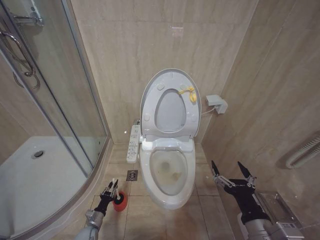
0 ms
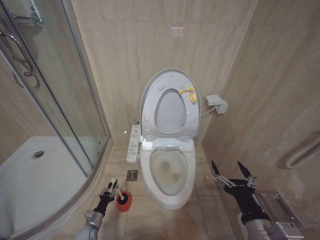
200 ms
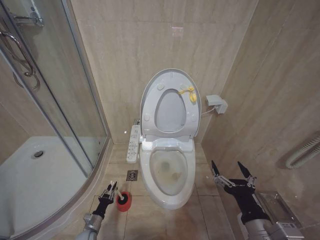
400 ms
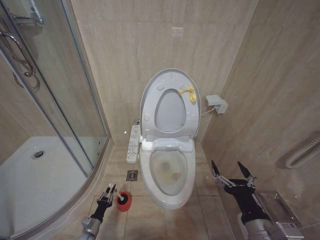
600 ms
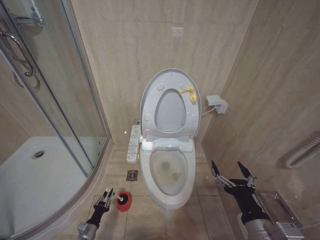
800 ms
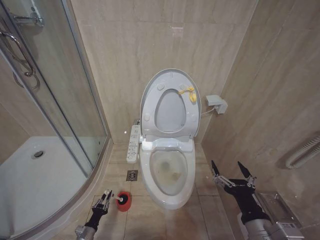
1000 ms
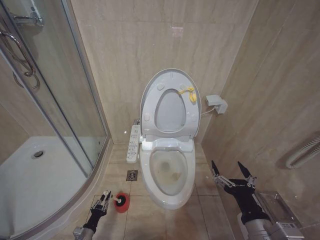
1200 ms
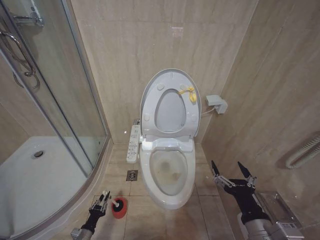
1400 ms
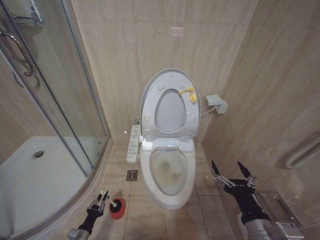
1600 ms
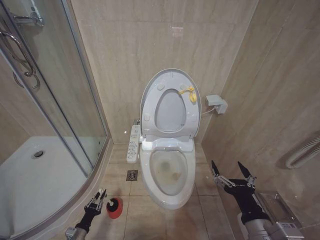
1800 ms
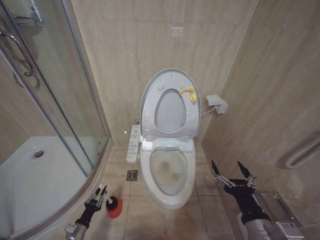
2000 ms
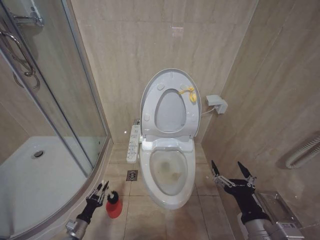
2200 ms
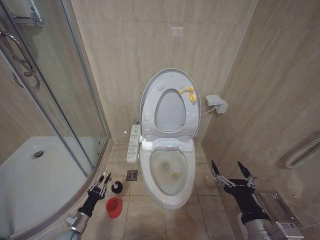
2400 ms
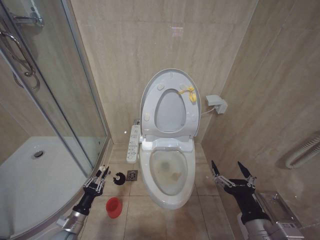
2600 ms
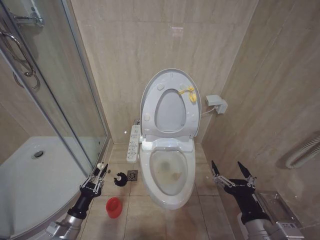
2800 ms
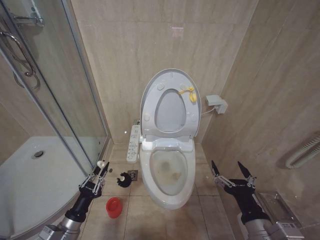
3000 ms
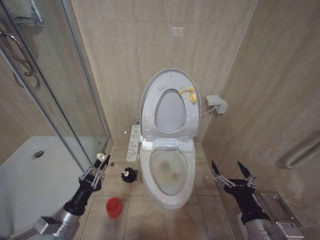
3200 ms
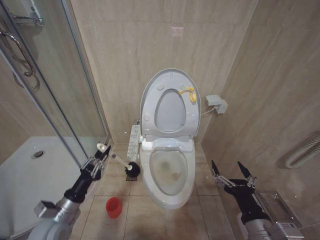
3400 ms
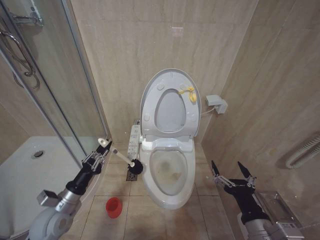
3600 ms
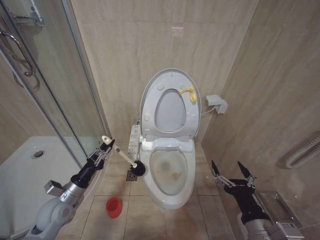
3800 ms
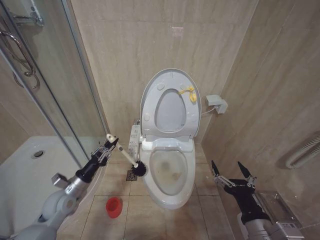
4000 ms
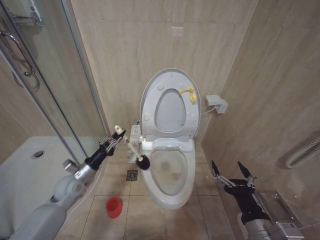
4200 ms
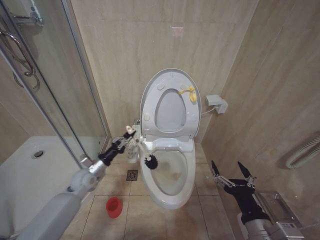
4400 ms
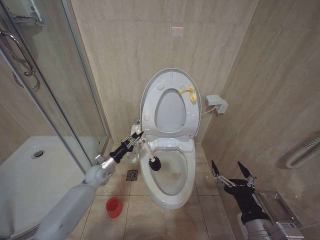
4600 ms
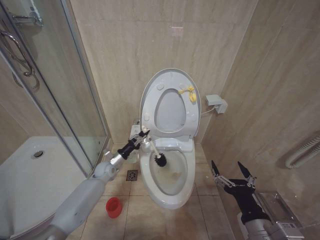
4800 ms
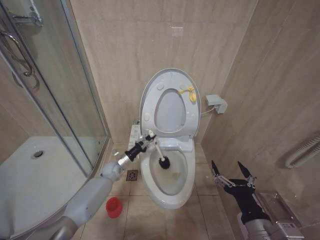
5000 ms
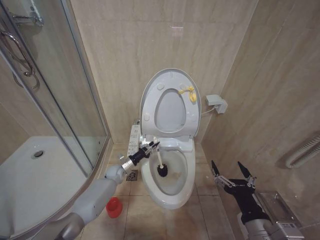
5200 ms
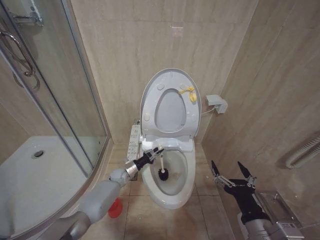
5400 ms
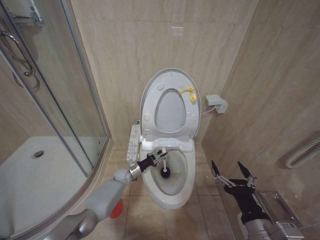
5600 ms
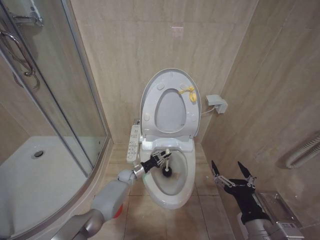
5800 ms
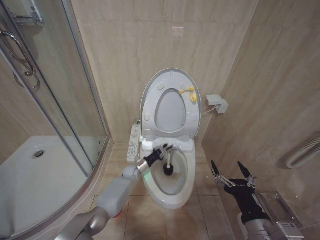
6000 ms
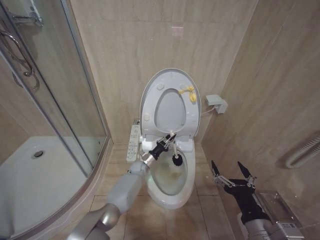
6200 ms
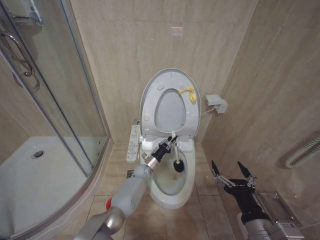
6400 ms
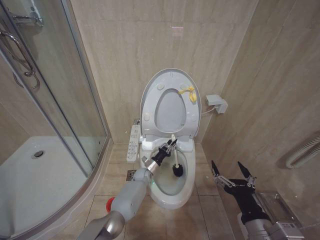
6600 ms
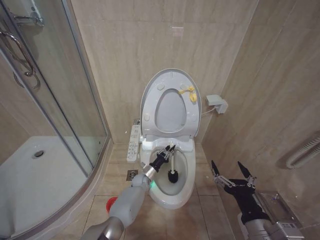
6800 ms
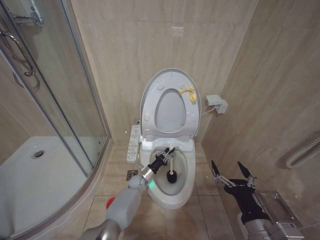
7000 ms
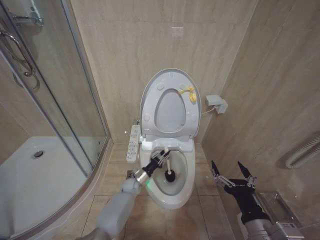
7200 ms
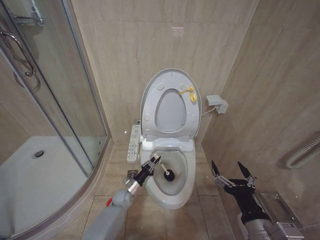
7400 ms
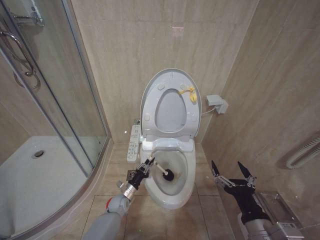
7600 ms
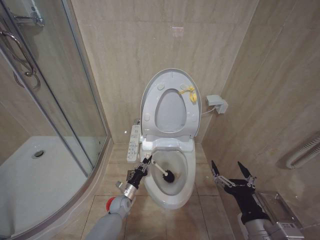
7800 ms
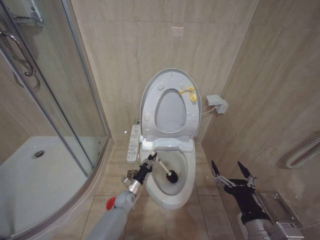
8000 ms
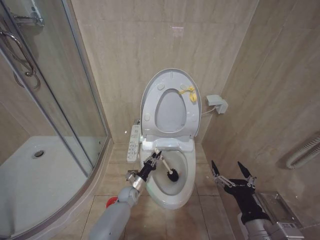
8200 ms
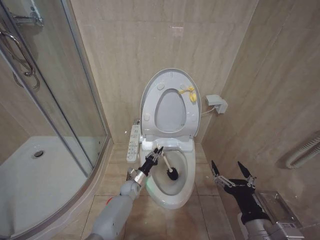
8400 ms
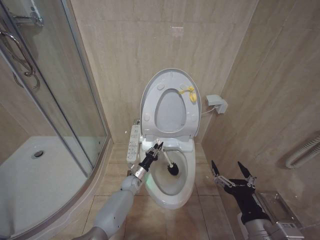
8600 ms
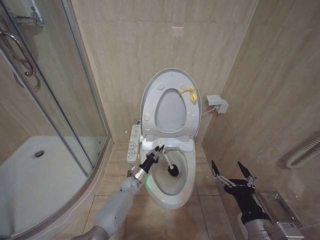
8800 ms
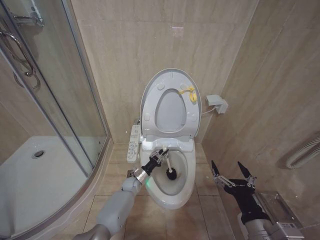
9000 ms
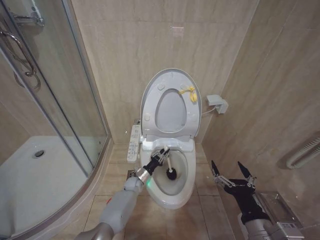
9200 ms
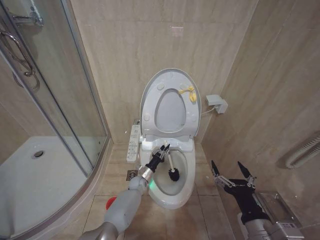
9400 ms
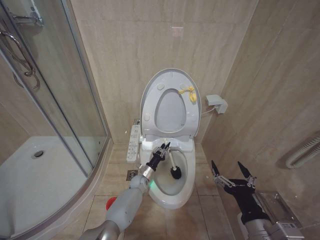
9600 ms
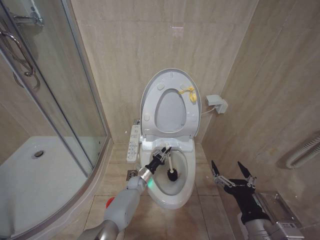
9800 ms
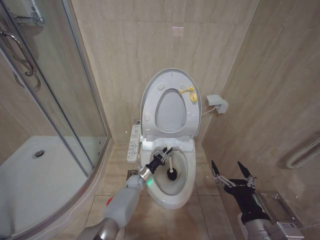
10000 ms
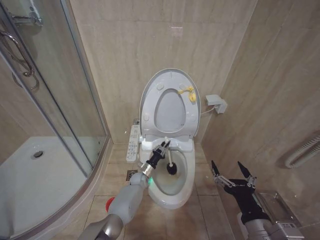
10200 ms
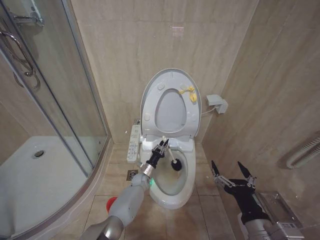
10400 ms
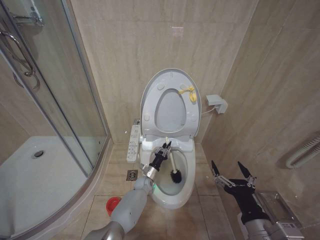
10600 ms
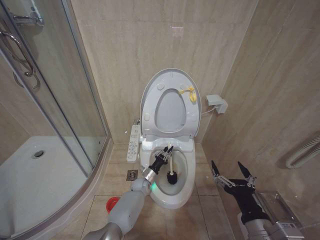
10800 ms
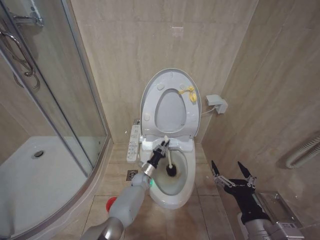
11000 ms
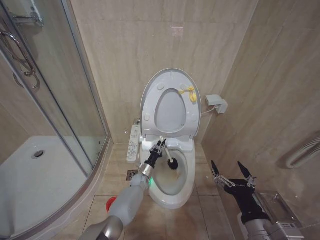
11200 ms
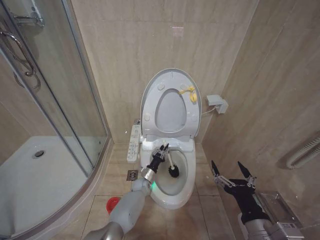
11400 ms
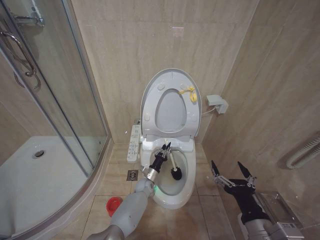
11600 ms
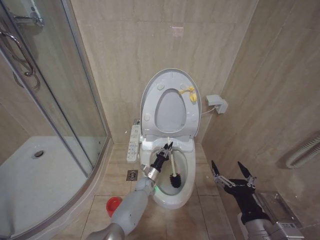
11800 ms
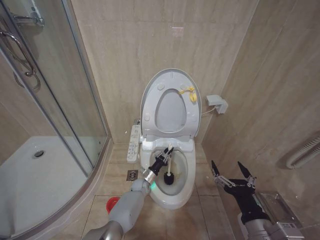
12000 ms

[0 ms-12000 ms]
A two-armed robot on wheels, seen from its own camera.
Task of the whole recording: Open the toilet lid, clean the toilet bowl with a toilet brush, close the toilet lid, and flush.
0 ms to 1600 ms: The left gripper moves backward, approximately 10 cm.
1600 ms to 3000 ms: The left gripper moves upward, roughly 20 cm.
3000 ms to 4400 ms: The left gripper heads forward, covering approximately 20 cm.
4400 ms to 6000 ms: The left gripper heads to the right, downward and forward, covering about 25 cm.
6000 ms to 7600 ms: The left gripper moves backward and downward, roughly 15 cm.
7600 ms to 9000 ms: The left gripper shifts roughly 10 cm forward and to the right.
9000 ms to 10400 ms: The left gripper changes place by some 5 cm.
10400 ms to 12000 ms: The grippers move only a little.

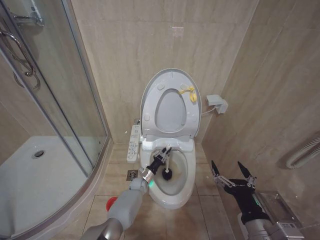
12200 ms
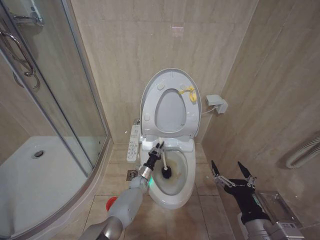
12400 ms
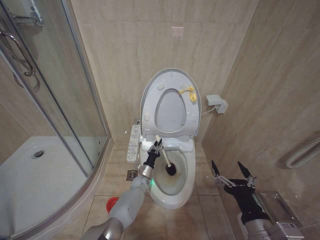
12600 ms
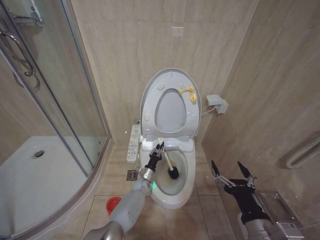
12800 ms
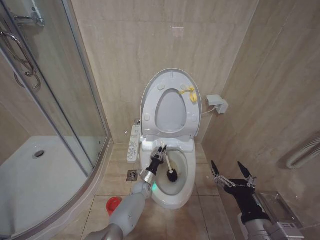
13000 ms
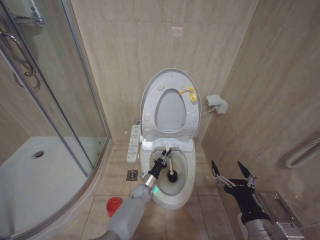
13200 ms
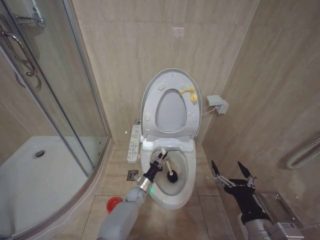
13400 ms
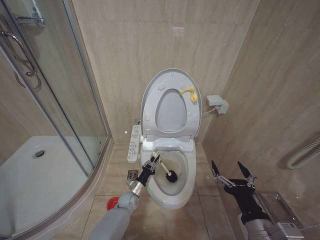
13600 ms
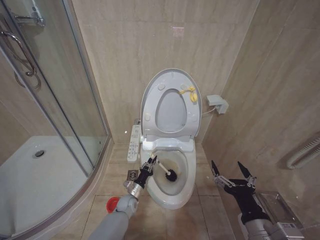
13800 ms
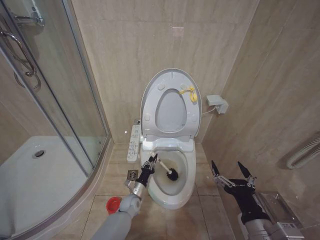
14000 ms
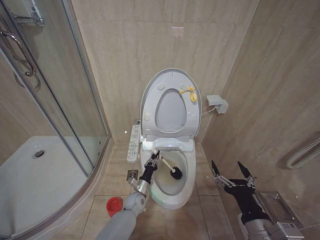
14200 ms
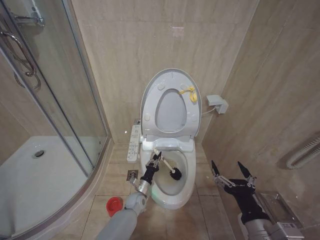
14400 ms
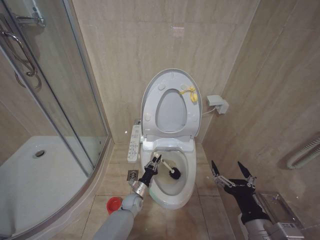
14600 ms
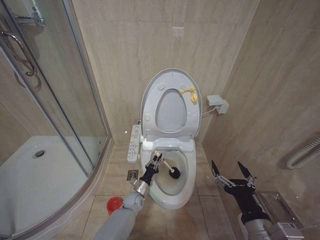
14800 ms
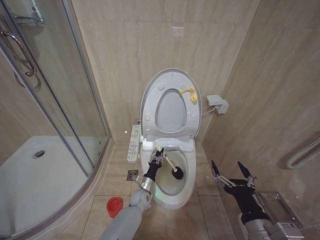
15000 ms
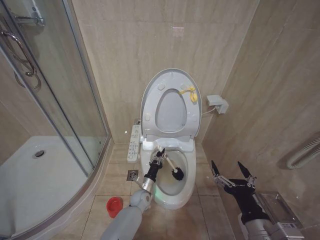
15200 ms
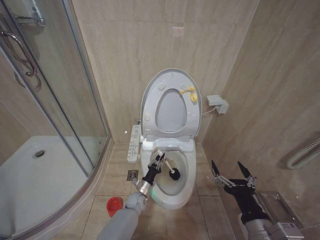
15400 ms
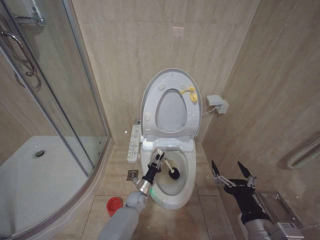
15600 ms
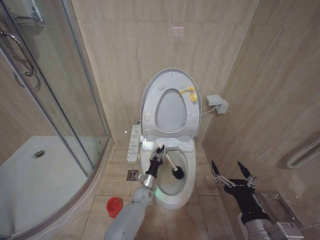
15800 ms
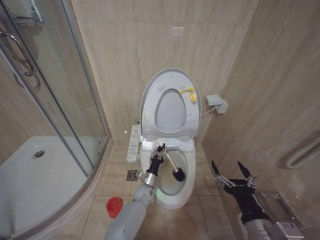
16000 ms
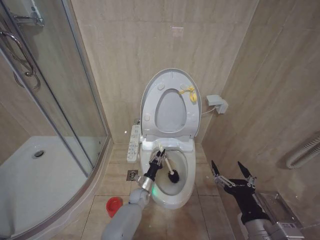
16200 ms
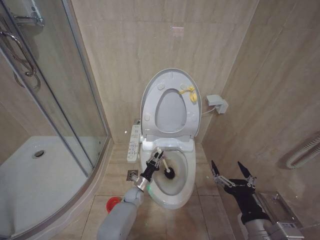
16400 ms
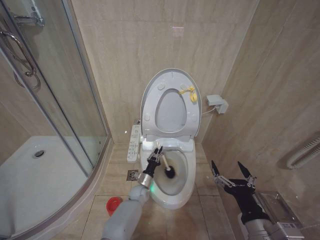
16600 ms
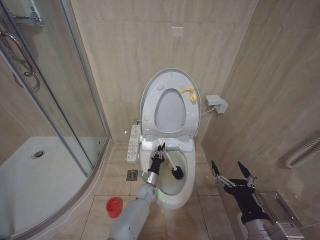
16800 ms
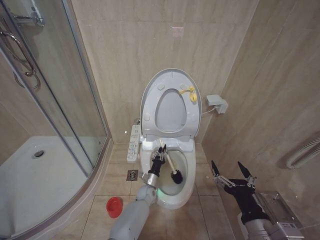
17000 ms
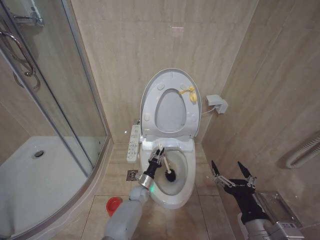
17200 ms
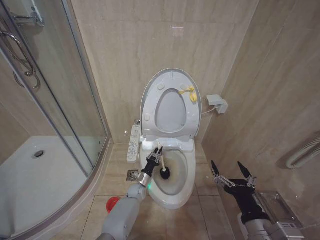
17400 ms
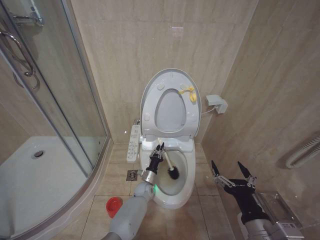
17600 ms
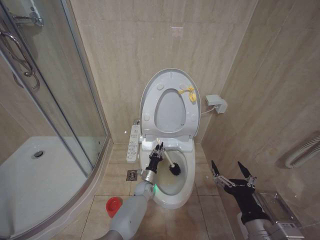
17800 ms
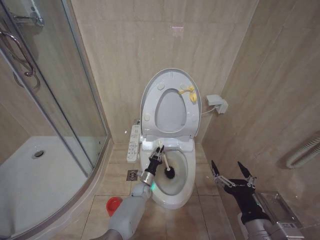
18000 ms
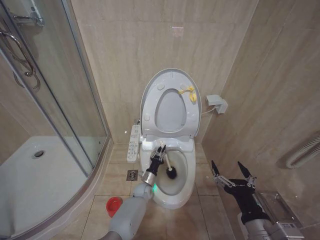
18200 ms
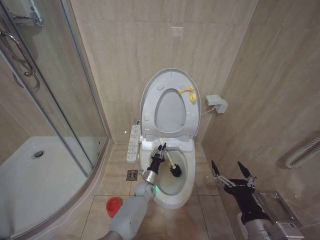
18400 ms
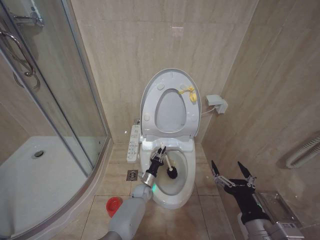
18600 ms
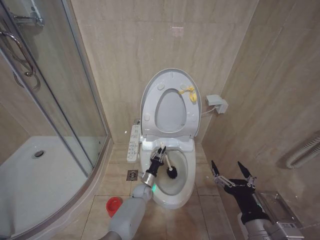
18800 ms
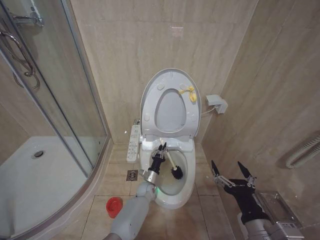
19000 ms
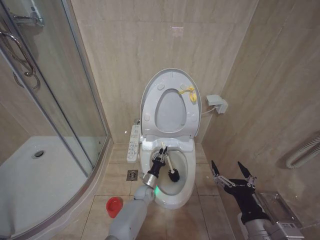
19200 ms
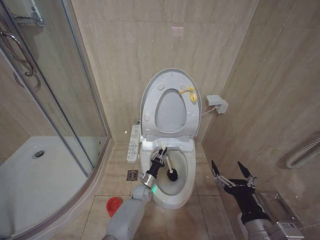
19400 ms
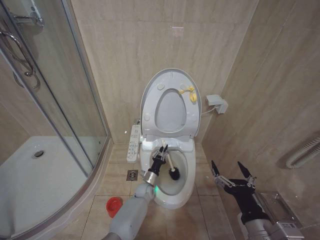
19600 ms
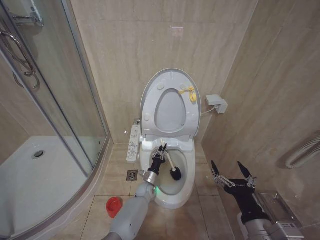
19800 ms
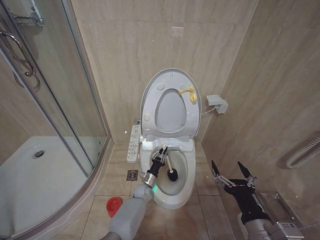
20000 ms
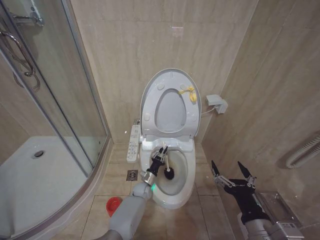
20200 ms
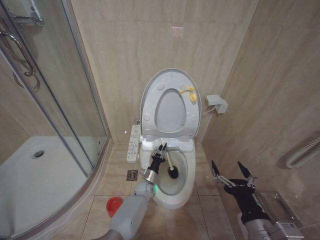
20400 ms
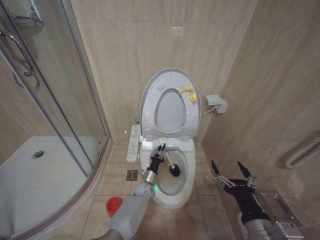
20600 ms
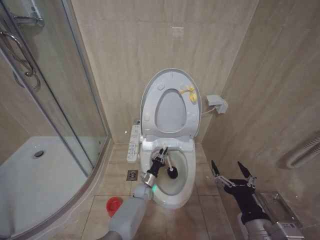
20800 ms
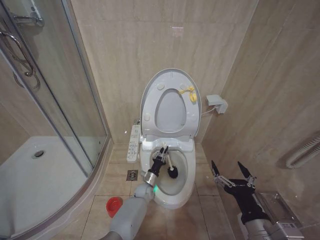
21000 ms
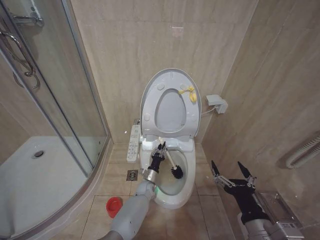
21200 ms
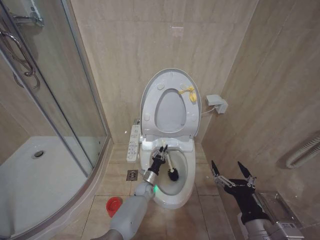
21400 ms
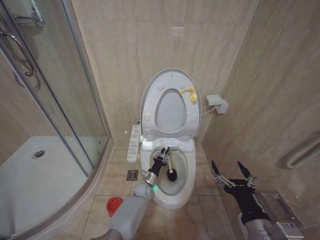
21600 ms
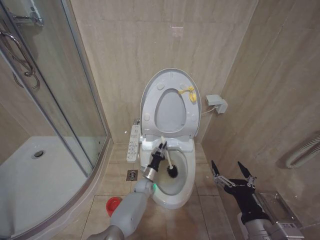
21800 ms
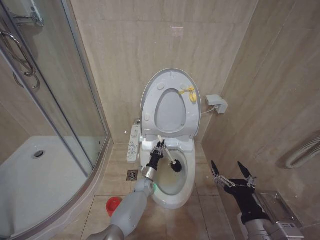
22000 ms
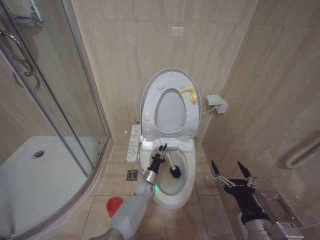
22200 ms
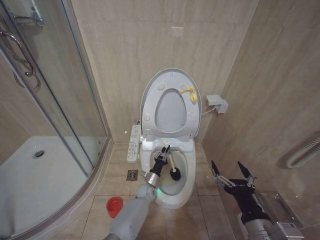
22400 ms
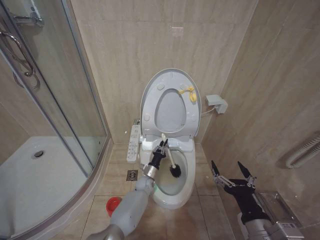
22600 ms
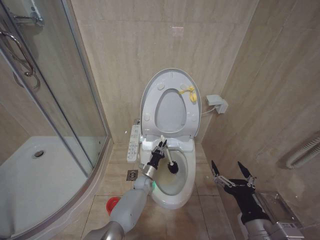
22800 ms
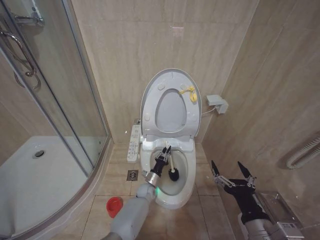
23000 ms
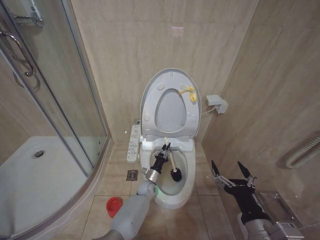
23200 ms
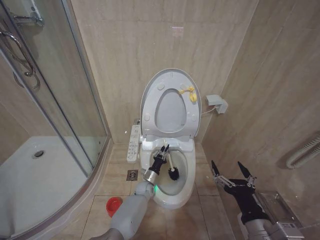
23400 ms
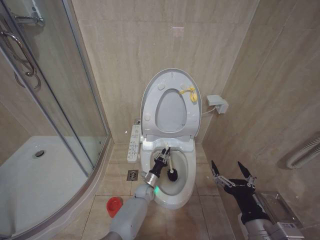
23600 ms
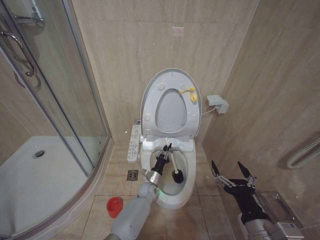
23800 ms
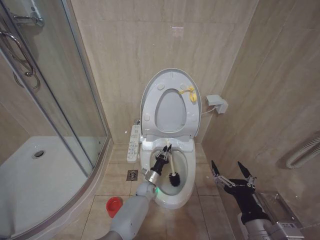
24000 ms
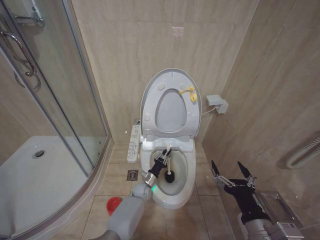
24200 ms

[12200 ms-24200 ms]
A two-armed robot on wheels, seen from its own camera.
Task of the whole recording: Open the toilet lid, clean the toilet bowl with a toilet brush, close the toilet lid, and flush.
12200 ms to 13800 ms: The left gripper is displaced backward and to the left by about 10 cm.
13800 ms to 15200 ms: The left gripper is displaced to the right by roughly 5 cm.
15200 ms to 16600 ms: The left gripper ends up approximately 5 cm from where it was.
16600 ms to 18200 ms: The left gripper swings left and right, approximately 5 cm each way, with 2 reversals.
21200 ms to 24200 ms: The grippers stay close to where they were, moving slightly.
